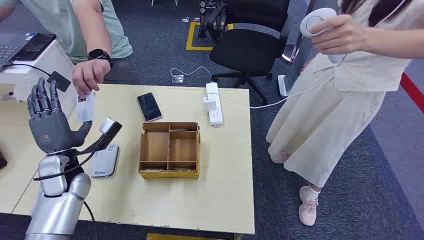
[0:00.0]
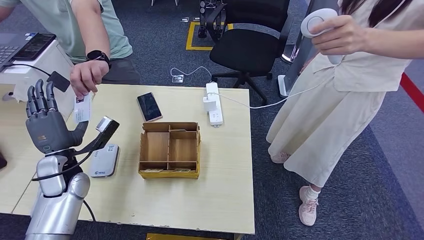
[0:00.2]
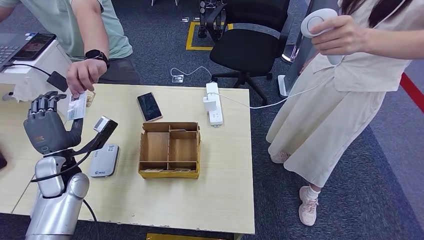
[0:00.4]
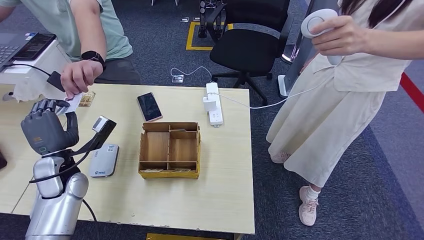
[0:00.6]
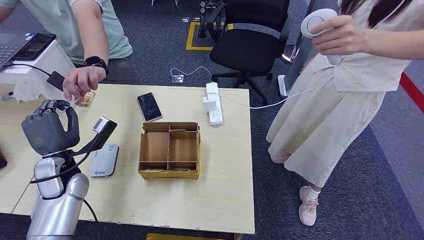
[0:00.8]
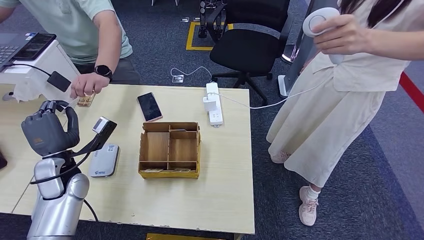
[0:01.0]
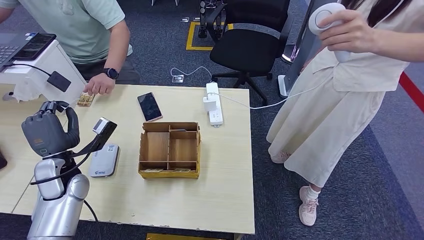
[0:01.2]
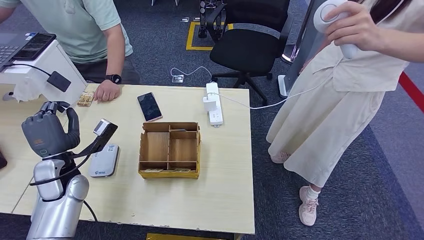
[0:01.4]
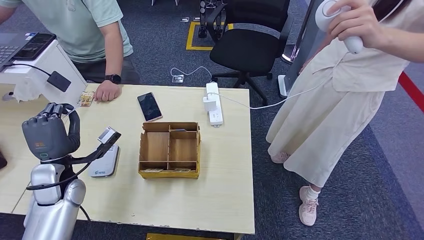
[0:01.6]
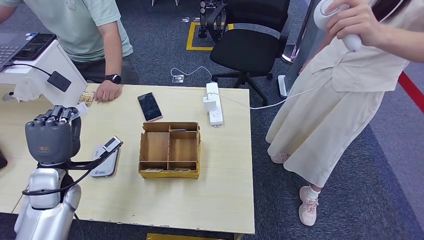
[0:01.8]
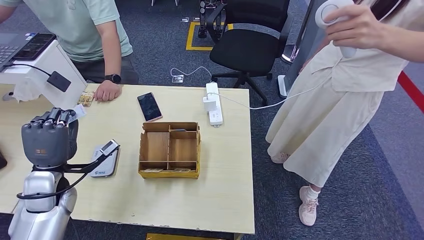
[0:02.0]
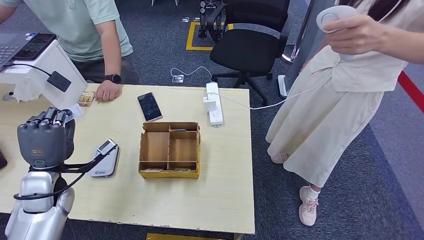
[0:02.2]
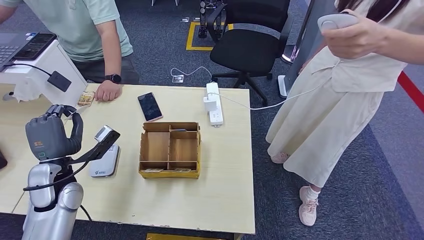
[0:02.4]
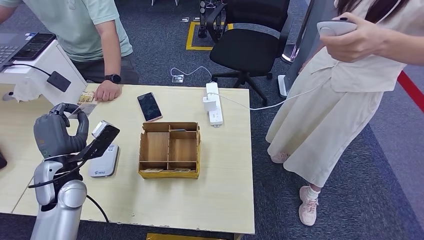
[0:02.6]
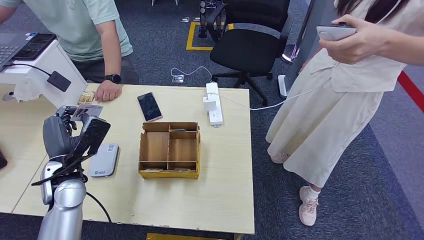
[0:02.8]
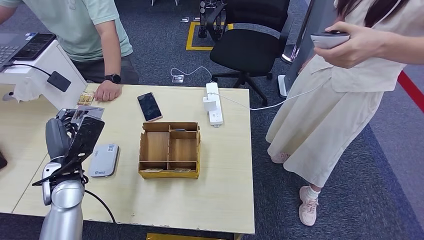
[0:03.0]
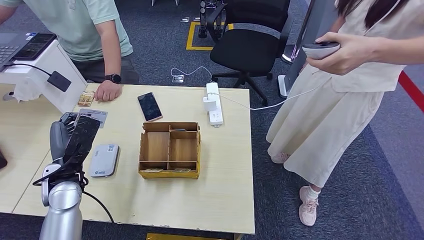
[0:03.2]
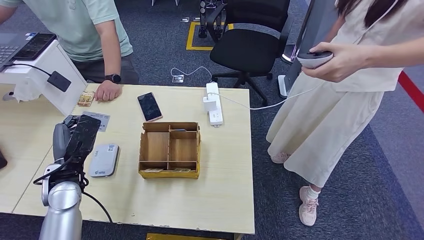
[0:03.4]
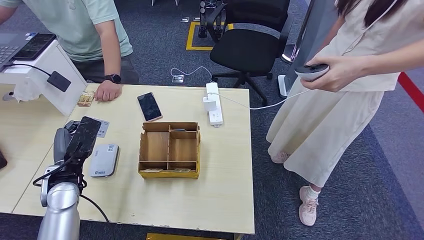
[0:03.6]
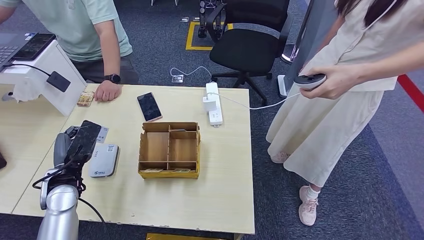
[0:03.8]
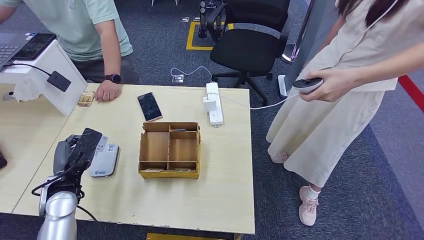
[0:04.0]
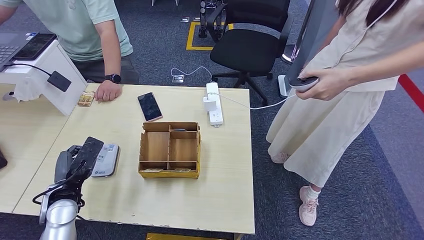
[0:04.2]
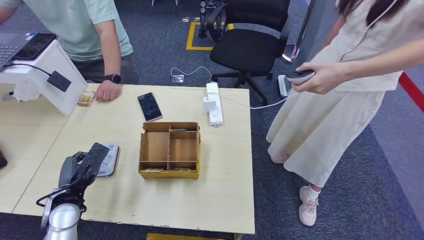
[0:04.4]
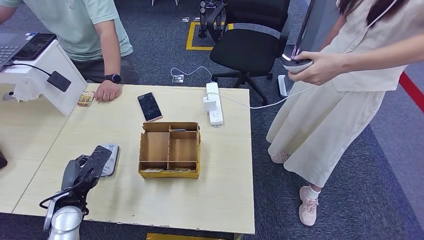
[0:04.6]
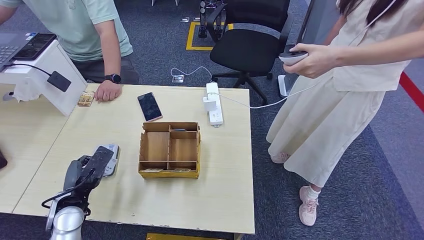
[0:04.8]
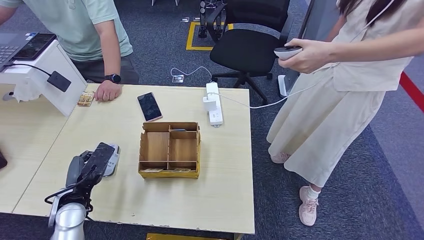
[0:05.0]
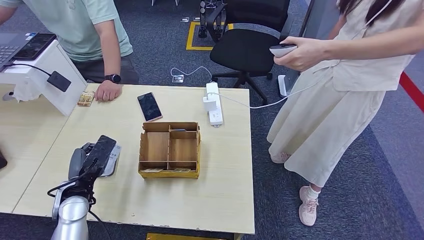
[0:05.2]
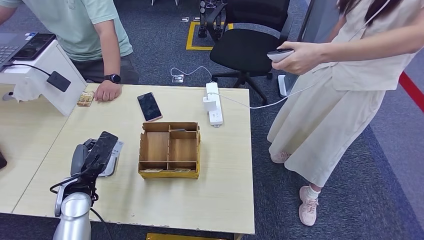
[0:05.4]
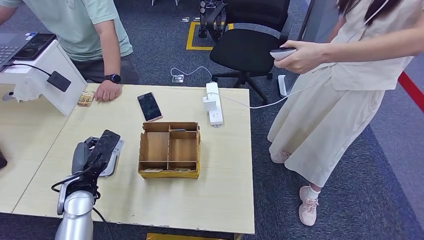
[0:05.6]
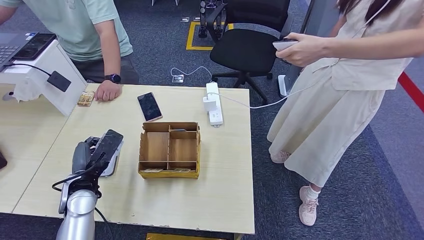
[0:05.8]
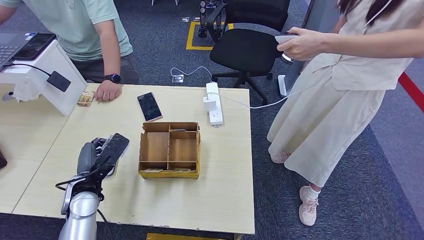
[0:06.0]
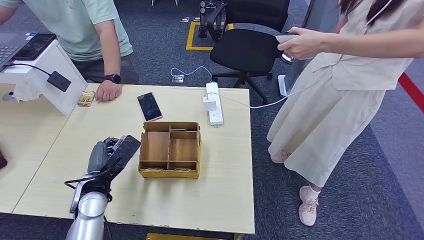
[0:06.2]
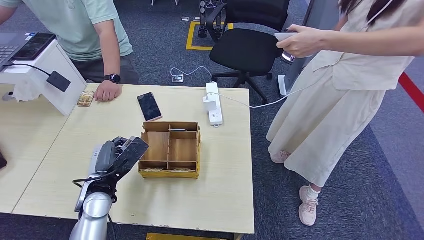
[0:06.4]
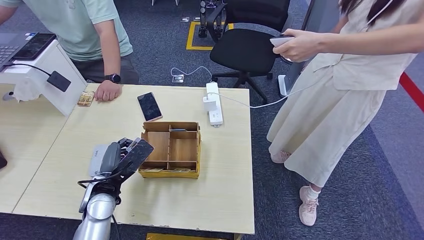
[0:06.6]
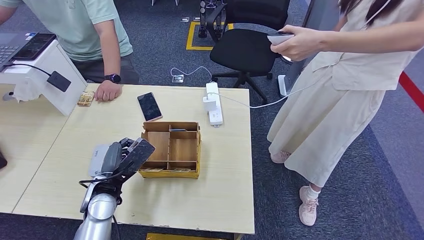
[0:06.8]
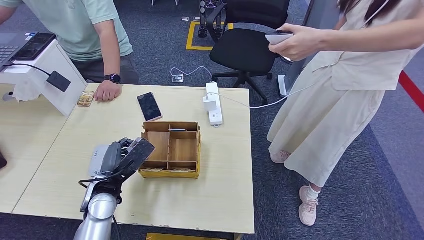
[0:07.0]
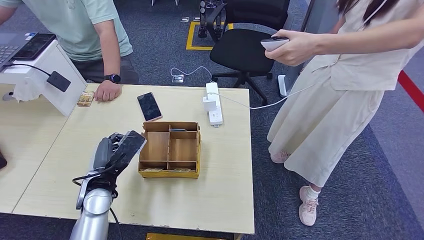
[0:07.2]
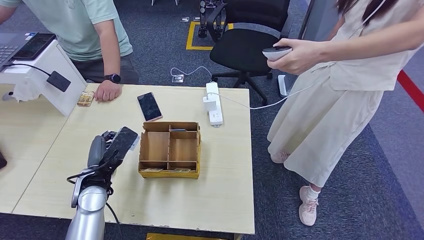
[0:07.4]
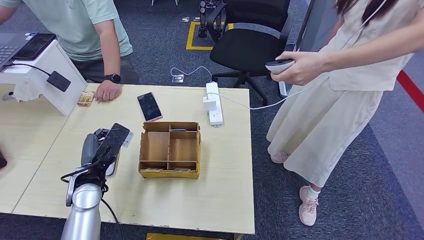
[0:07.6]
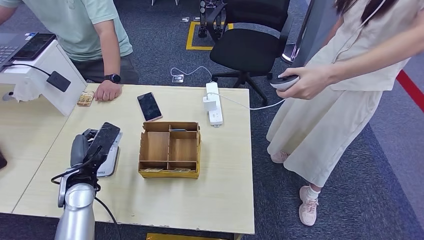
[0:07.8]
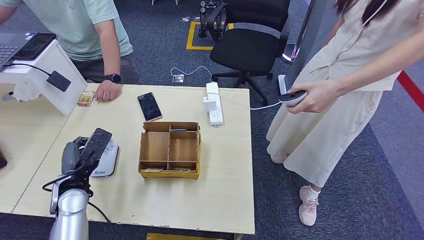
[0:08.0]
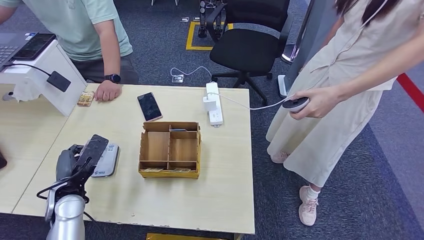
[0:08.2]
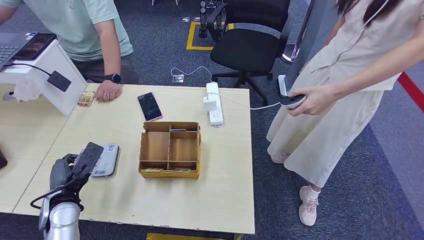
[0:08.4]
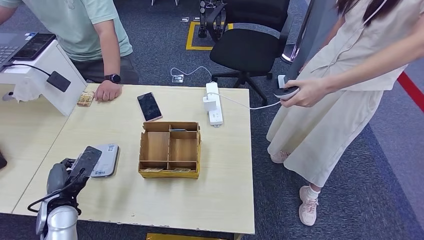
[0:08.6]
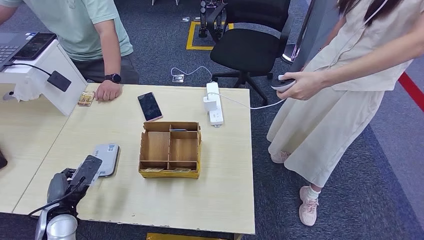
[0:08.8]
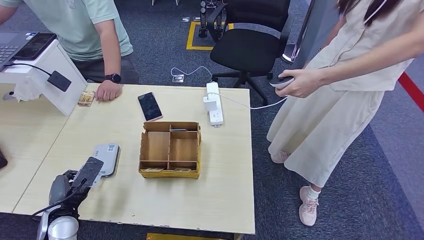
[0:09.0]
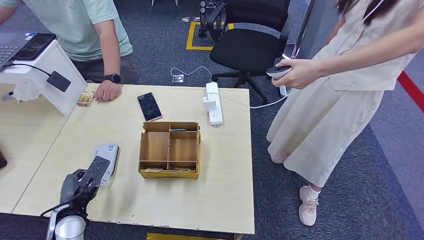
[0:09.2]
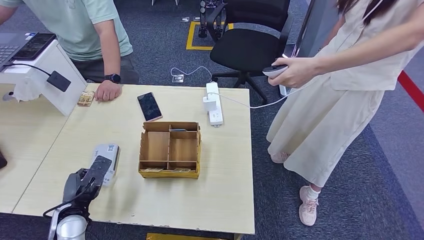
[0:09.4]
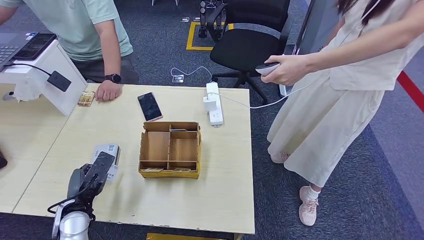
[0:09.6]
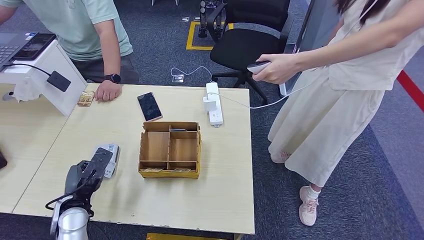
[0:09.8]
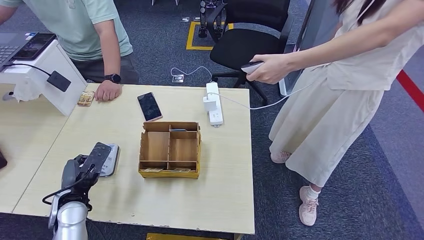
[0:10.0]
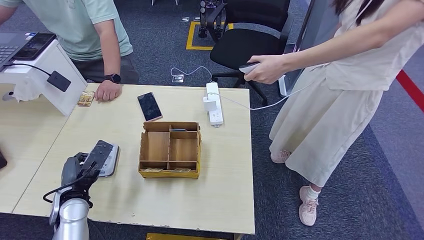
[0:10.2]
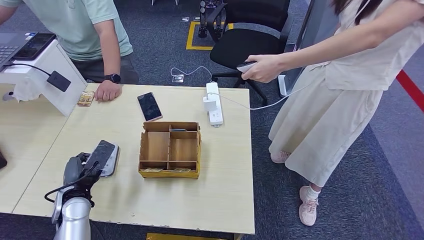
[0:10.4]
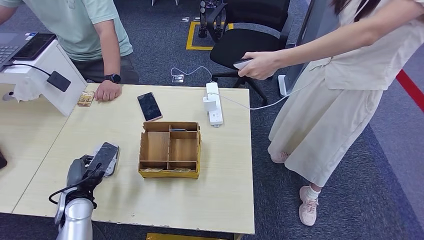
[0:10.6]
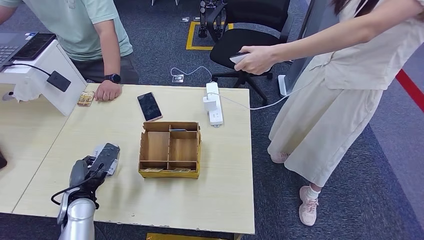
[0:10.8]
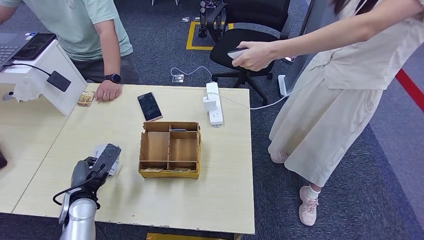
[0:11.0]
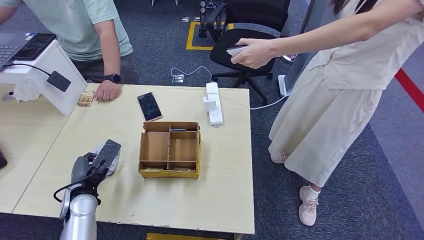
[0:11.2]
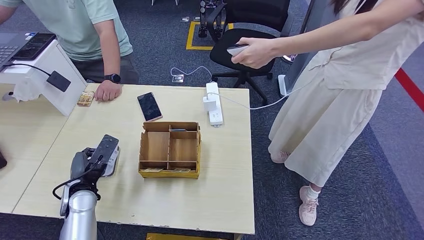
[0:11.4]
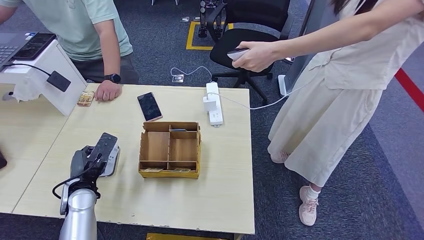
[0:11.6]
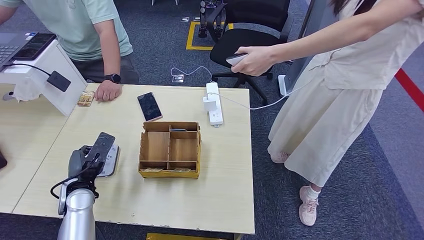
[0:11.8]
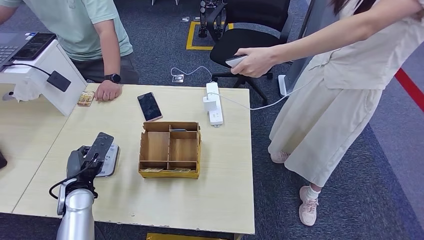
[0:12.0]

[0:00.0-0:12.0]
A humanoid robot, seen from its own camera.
Step, 0:00.0 to 0:01.2: Take the ID card from the person's hand.
0:03.0 to 0:04.4: The left hand shifts roughly 5 cm downward.
0:04.4 to 0:06.0: The left hand shifts by about 5 cm.
0:06.0 to 0:07.6: The hands stay close to where they were, moving slightly.
0:07.6 to 0:09.0: The left hand shifts about 10 cm backward, to the left and downward.
0:09.0 to 0:10.4: The left hand moves roughly 5 cm.
0:10.4 to 0:12.0: The hands stay close to where they were, moving slightly.

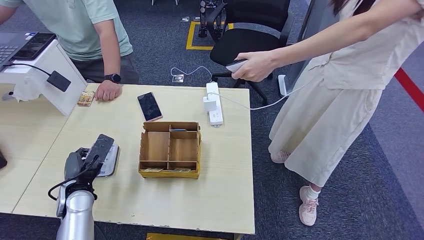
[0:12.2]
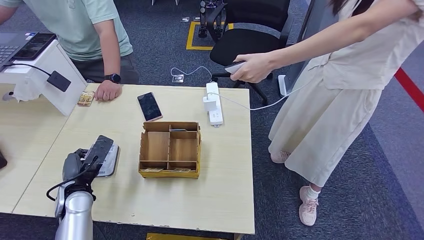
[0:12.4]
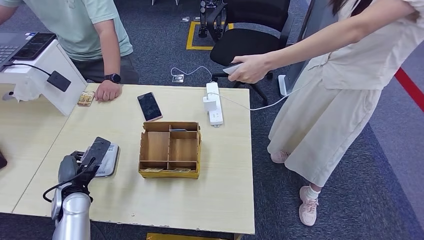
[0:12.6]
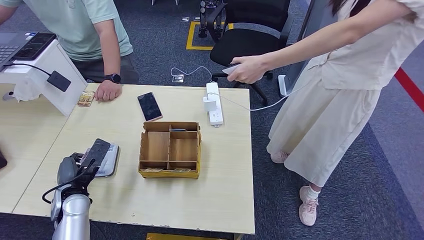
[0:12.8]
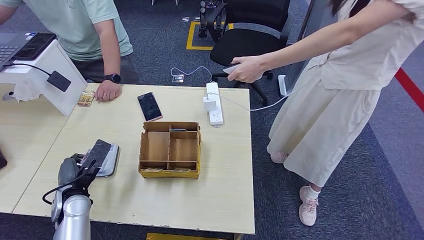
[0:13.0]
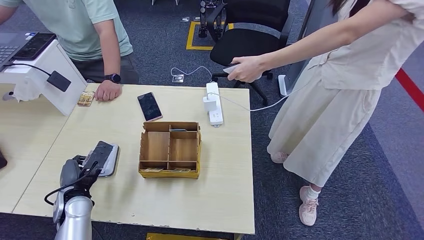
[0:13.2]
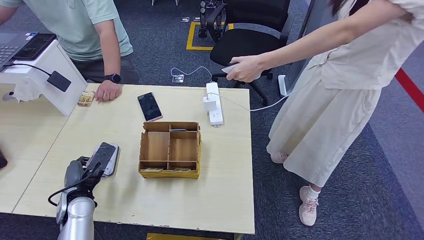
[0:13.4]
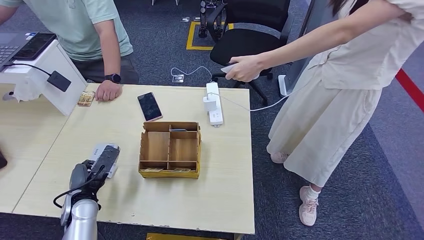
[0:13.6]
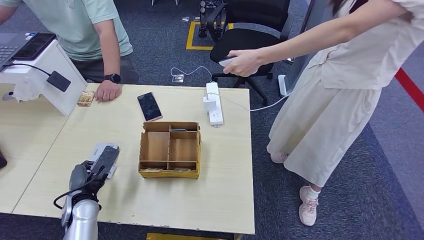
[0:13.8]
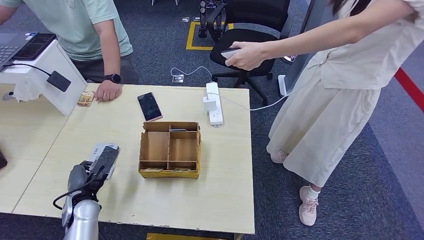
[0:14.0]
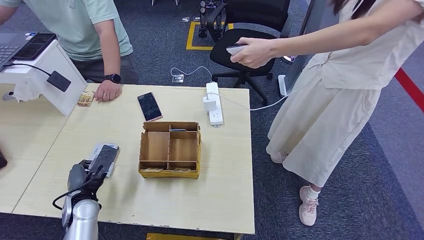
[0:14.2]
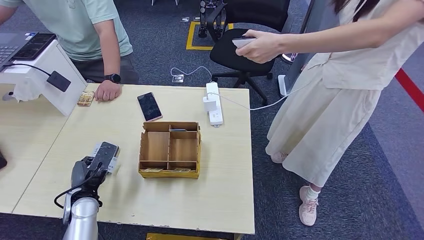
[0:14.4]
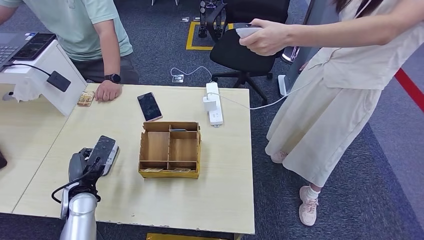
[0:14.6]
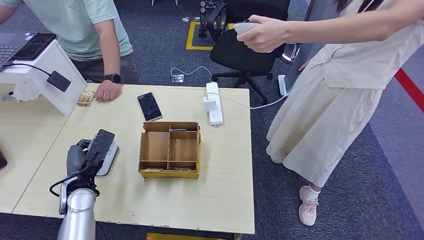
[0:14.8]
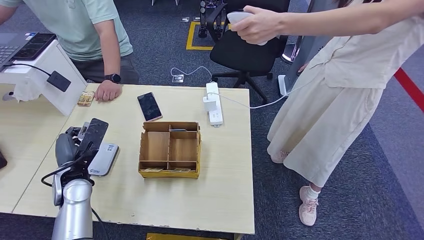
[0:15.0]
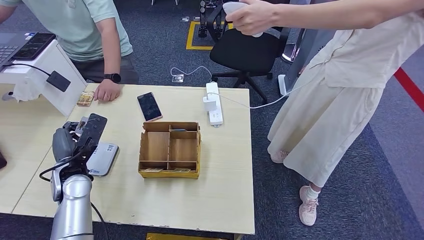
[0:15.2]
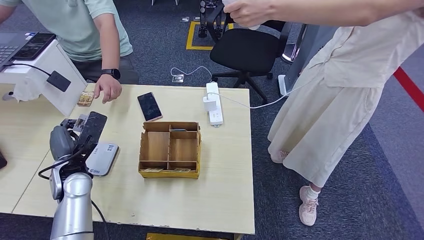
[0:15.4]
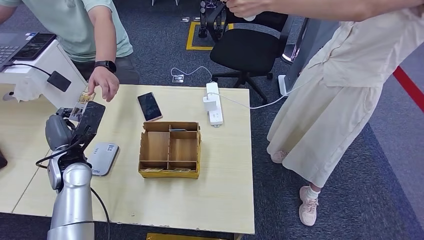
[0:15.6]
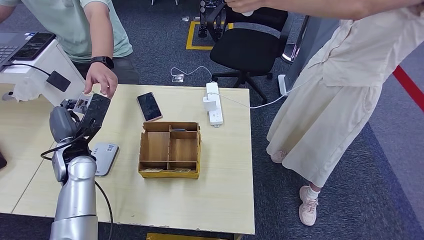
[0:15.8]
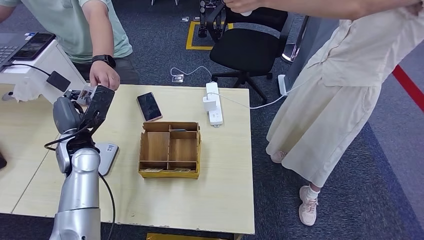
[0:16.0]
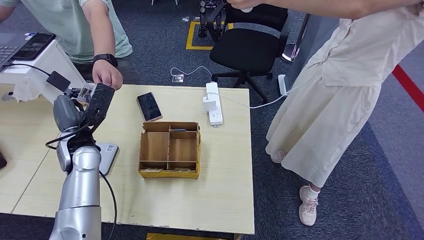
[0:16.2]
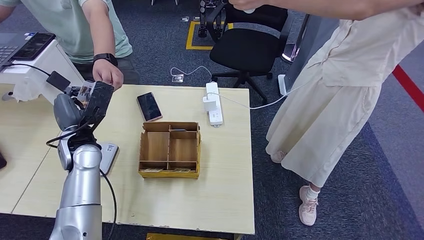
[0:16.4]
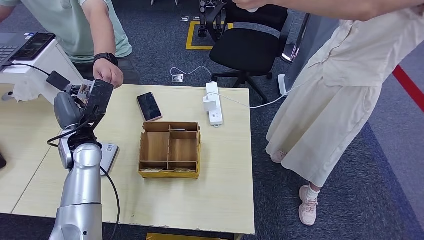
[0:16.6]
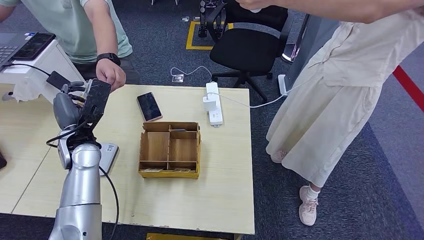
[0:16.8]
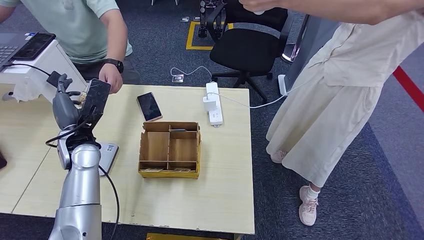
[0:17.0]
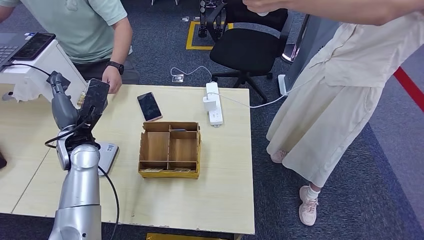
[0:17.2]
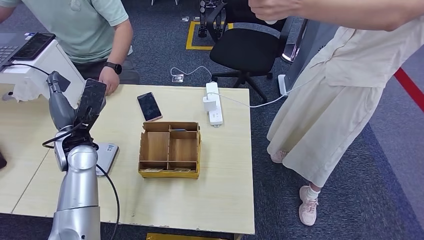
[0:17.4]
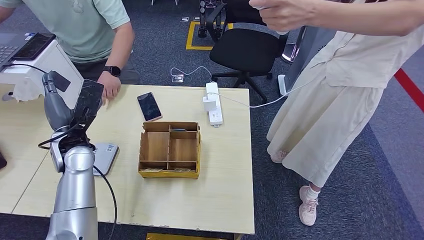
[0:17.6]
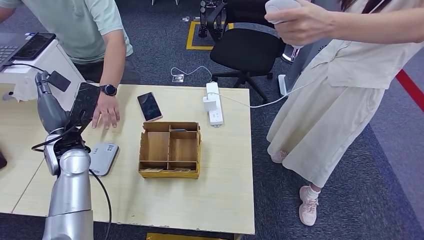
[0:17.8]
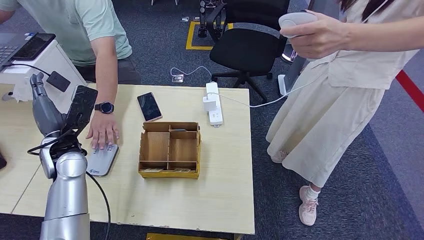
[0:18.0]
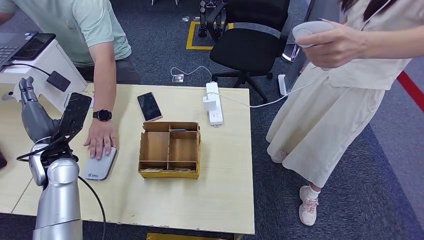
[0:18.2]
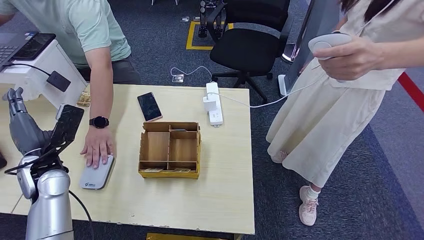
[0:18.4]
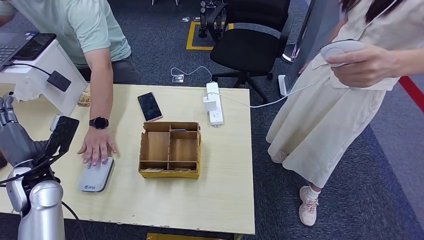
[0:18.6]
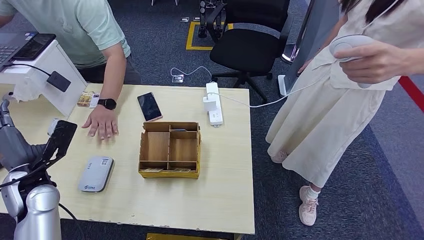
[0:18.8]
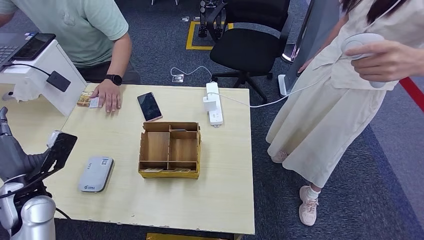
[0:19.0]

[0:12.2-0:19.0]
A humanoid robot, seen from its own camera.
Step, 0:12.8 to 0:16.6: Hand the ID card to the person.
0:12.2 to 0:13.6: The hands make only small movements.
0:13.6 to 0:15.0: The left hand goes roughly 5 cm upward.
0:15.0 to 0:16.2: The left hand heads upward and forward, covering about 10 cm.
0:16.2 to 0:17.6: The hands stay close to where they were, moving slightly.
